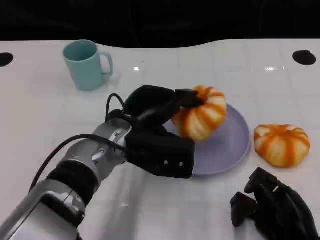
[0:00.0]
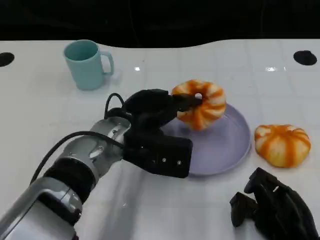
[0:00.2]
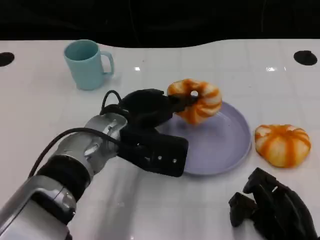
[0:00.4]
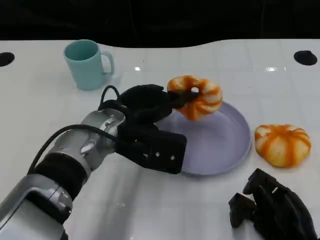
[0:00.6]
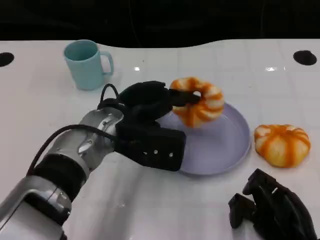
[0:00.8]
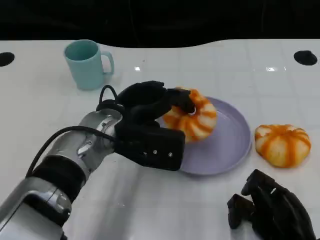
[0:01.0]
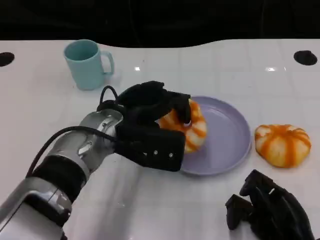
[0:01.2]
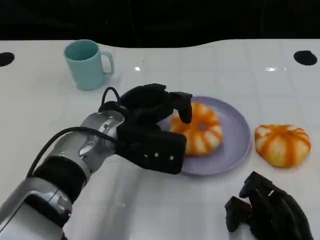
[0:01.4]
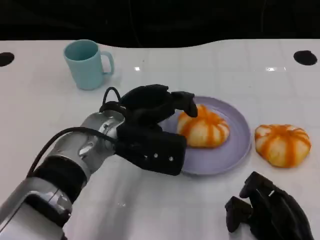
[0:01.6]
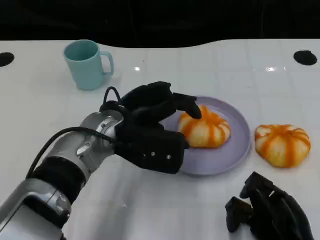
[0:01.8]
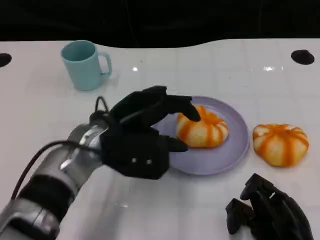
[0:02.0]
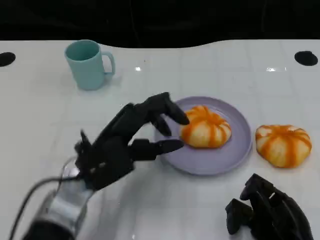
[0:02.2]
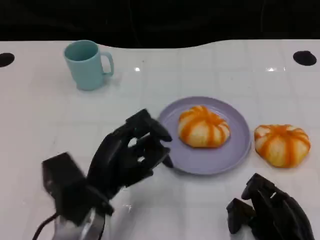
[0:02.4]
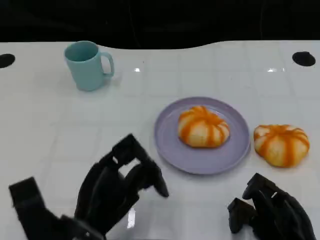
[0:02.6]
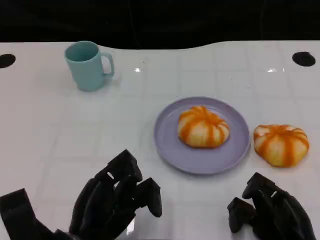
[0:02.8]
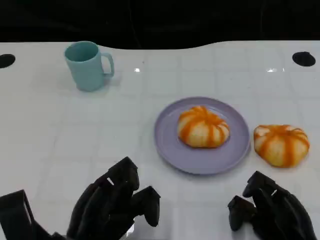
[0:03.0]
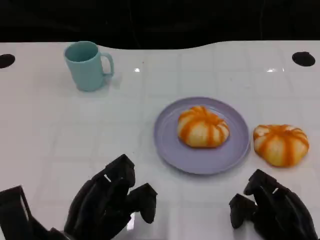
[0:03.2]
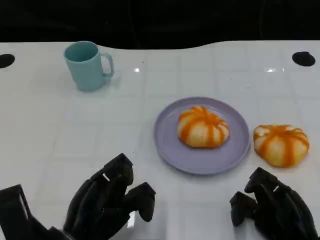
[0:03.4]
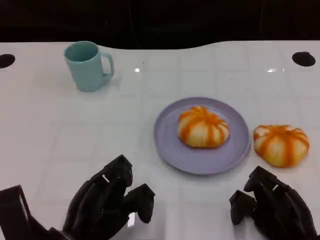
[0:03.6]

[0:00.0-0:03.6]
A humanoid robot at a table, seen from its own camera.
Task of the whole recording: Grasp the bread from the table and place it into the plate.
0:00.0 to 0:01.8: The hands move only a little.
0:01.8 to 0:03.6: The left hand shifts roughly 20 cm backward, downward and to the left.

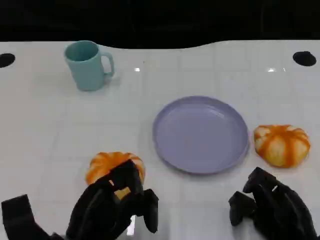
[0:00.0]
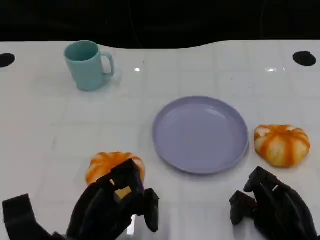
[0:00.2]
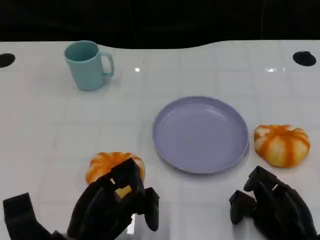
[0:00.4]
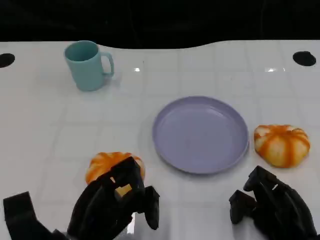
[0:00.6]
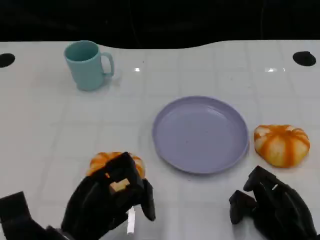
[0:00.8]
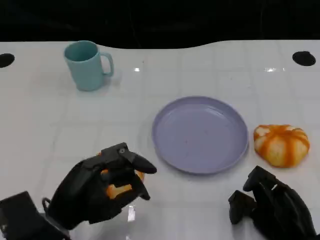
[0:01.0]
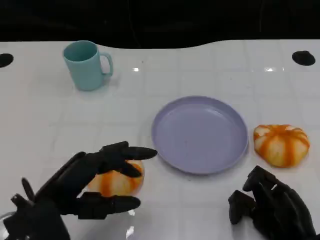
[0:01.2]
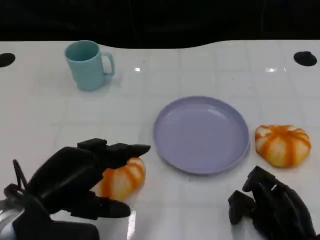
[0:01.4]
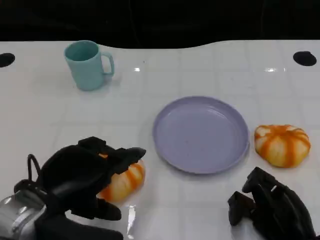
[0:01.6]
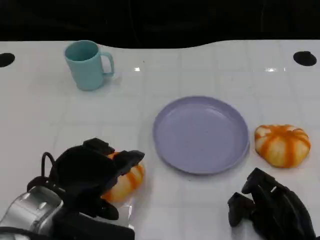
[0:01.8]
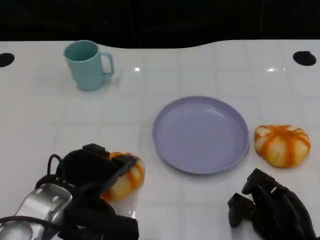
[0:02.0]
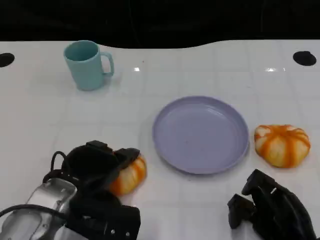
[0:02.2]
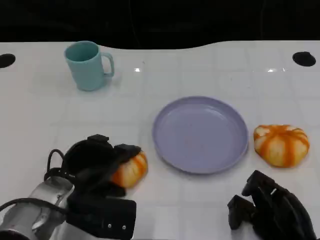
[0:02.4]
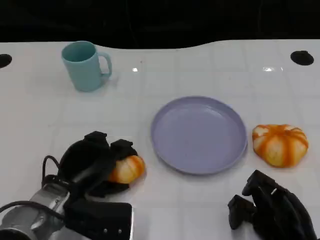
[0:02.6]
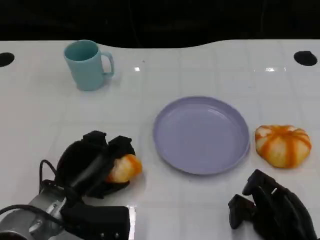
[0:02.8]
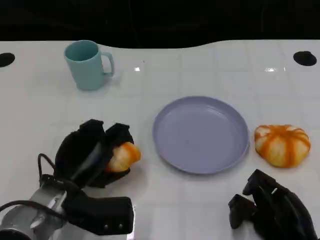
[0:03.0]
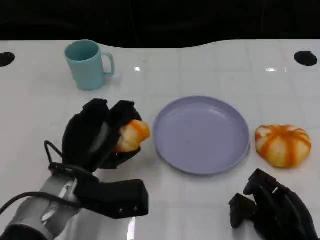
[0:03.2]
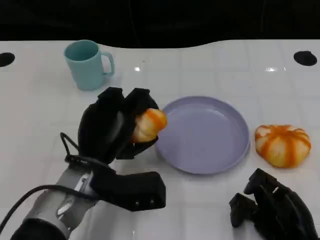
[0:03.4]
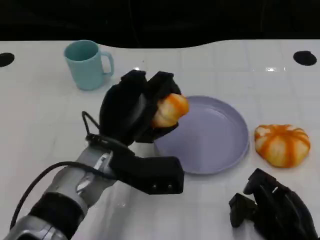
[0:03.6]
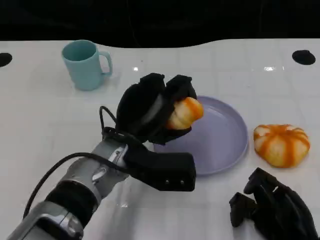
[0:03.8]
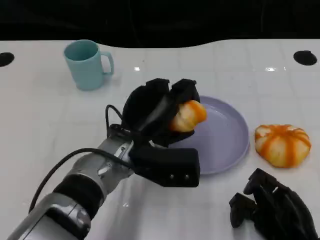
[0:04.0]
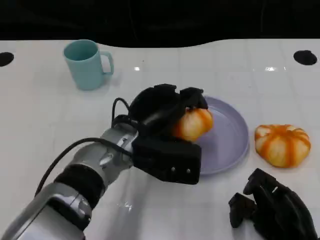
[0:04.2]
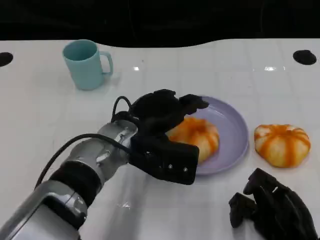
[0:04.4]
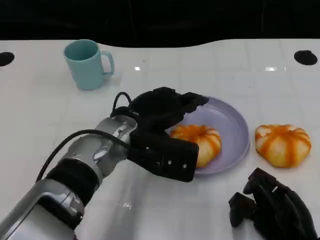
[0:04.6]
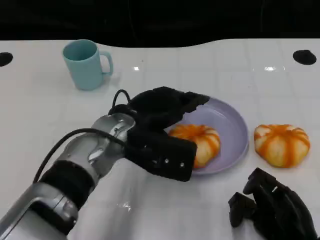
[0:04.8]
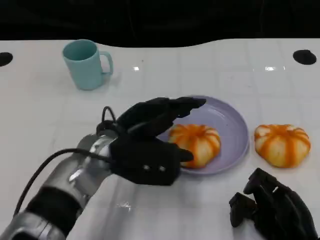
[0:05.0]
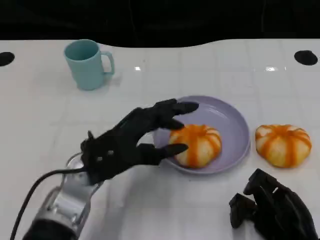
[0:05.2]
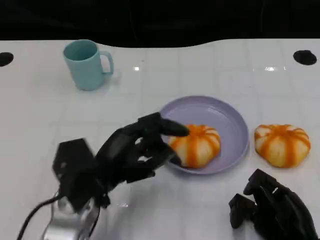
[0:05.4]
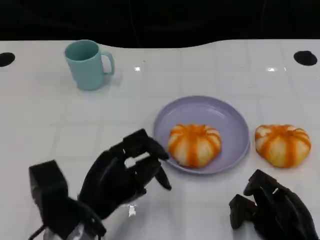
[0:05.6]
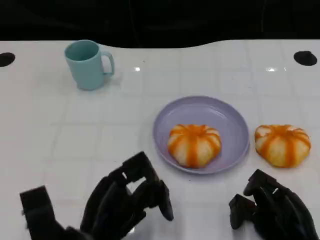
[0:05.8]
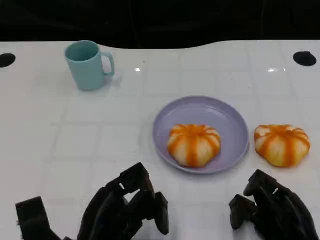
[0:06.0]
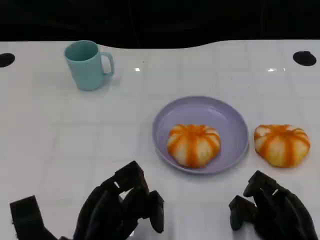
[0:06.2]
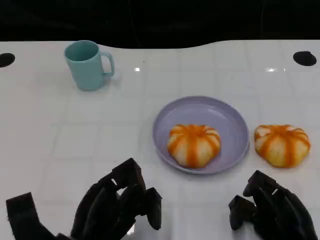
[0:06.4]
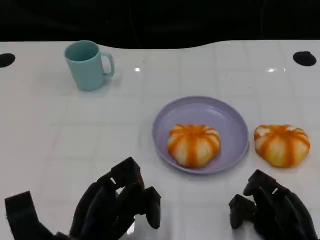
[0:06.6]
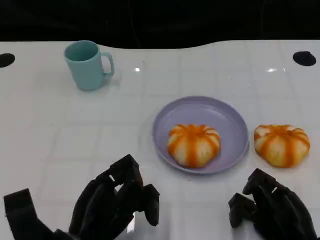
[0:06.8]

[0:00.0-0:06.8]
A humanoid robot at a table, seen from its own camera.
Task of the whole recording: Grasp the bread from the table and place it into the plate.
0:00.0 to 0:01.4: The left hand travels upward by approximately 10 cm.
0:01.4 to 0:02.8: The left hand goes some 10 cm downward and forward.
0:02.8 to 0:04.0: The left hand travels to the right and upward by about 10 cm.
0:04.0 to 0:05.4: The left hand travels to the left and backward by some 10 cm.
0:05.4 to 0:06.8: The left hand is displaced backward by roughly 5 cm.

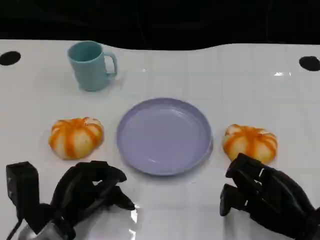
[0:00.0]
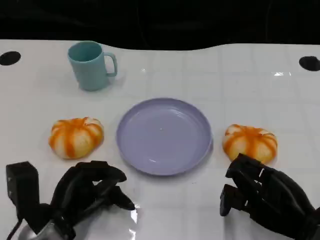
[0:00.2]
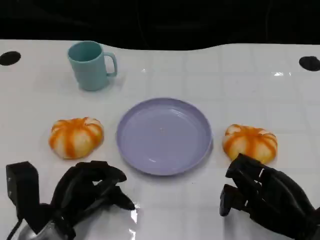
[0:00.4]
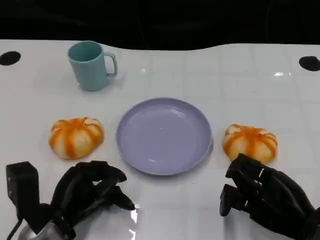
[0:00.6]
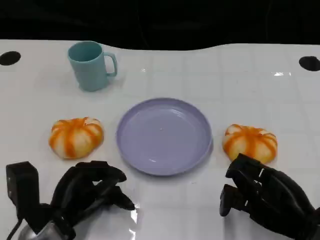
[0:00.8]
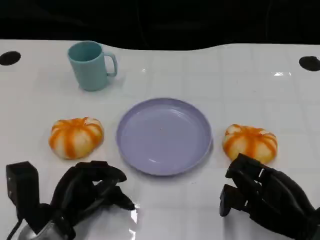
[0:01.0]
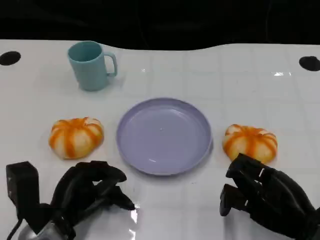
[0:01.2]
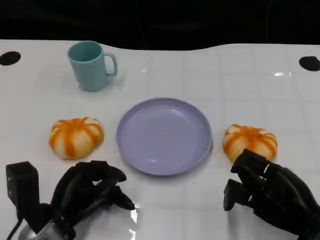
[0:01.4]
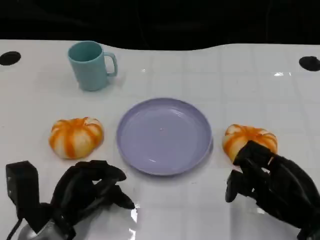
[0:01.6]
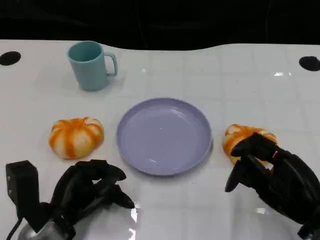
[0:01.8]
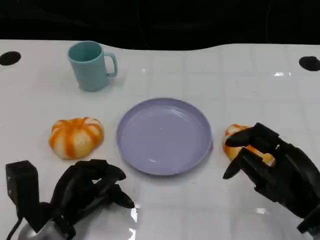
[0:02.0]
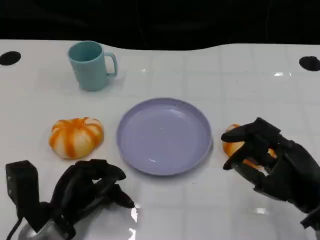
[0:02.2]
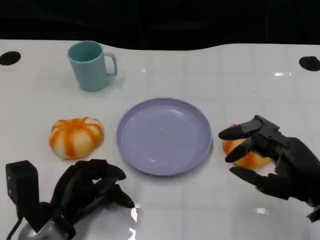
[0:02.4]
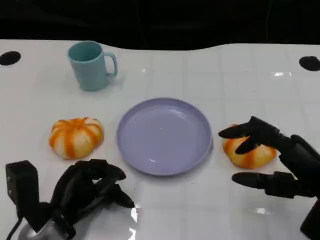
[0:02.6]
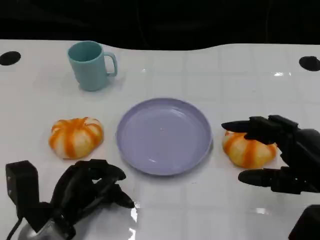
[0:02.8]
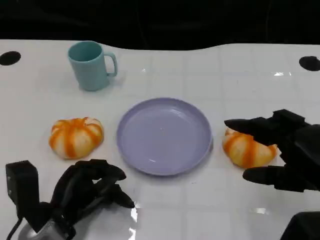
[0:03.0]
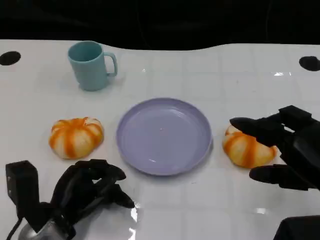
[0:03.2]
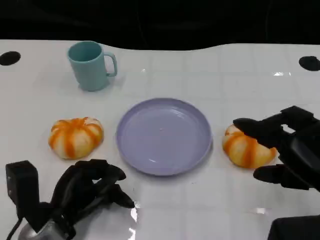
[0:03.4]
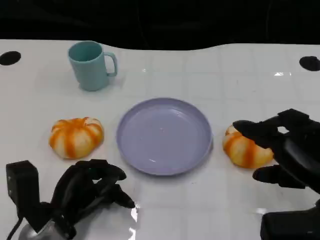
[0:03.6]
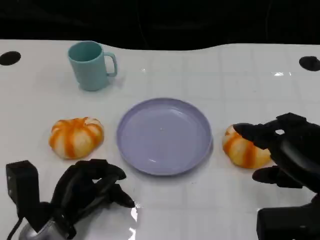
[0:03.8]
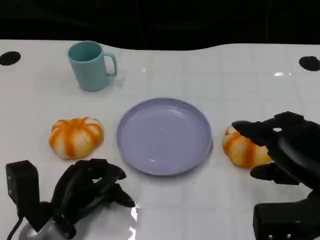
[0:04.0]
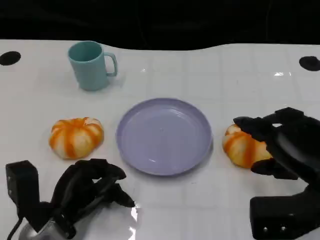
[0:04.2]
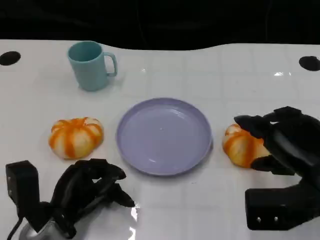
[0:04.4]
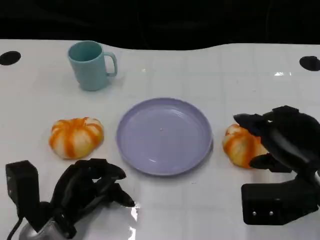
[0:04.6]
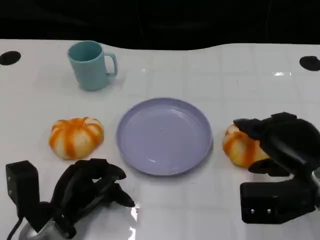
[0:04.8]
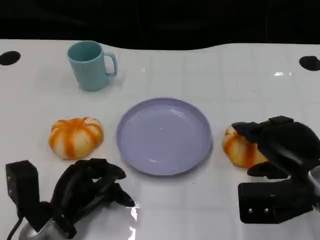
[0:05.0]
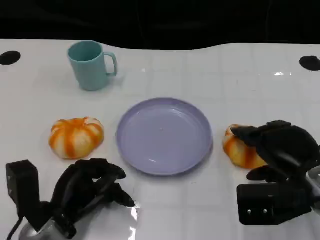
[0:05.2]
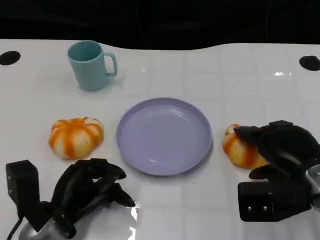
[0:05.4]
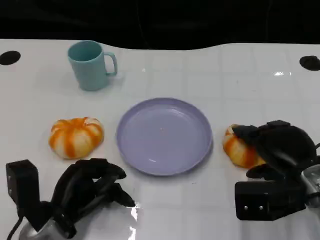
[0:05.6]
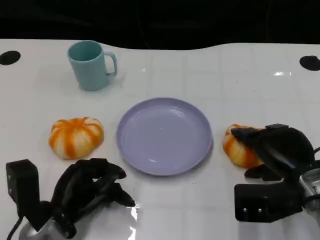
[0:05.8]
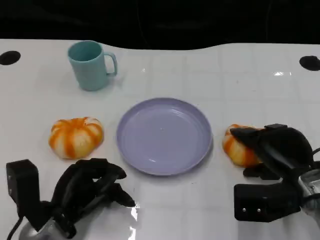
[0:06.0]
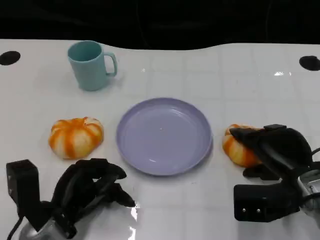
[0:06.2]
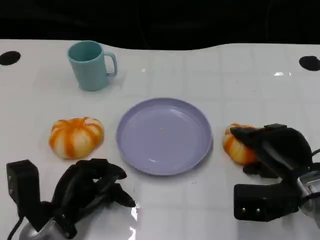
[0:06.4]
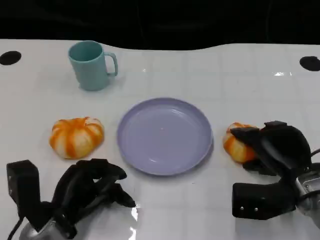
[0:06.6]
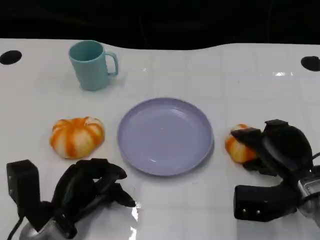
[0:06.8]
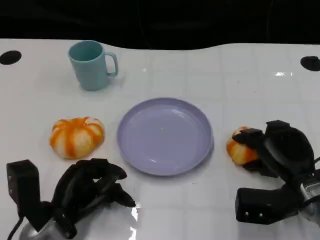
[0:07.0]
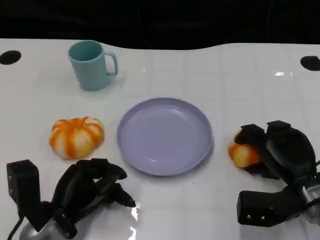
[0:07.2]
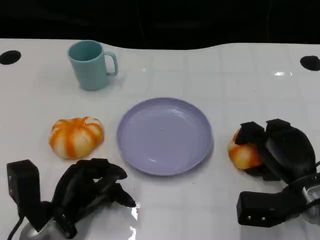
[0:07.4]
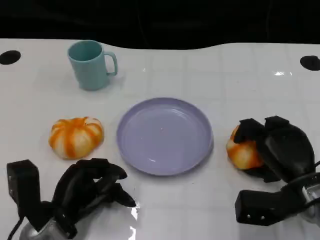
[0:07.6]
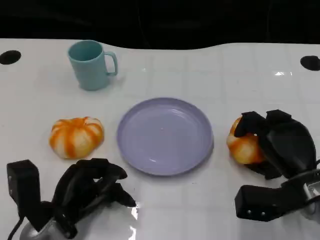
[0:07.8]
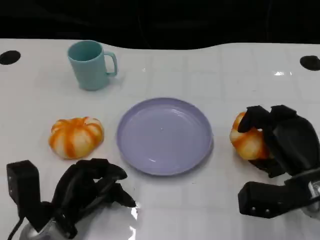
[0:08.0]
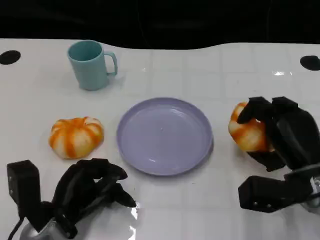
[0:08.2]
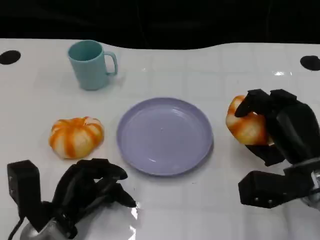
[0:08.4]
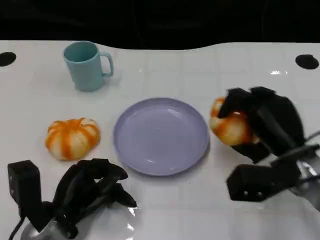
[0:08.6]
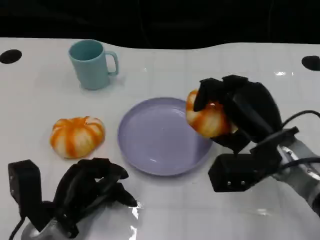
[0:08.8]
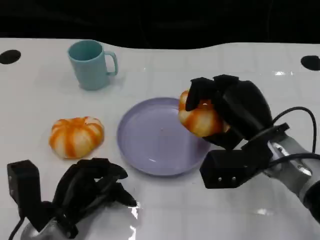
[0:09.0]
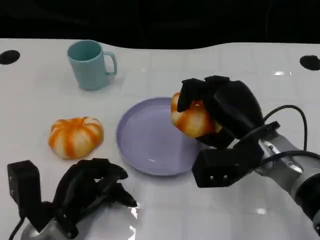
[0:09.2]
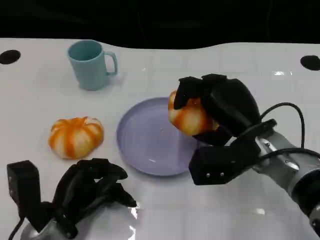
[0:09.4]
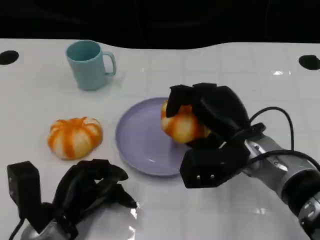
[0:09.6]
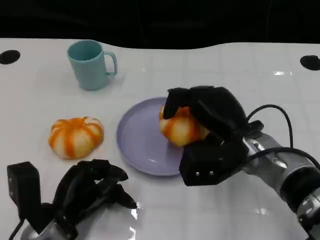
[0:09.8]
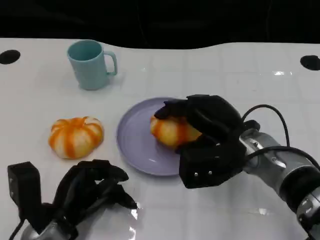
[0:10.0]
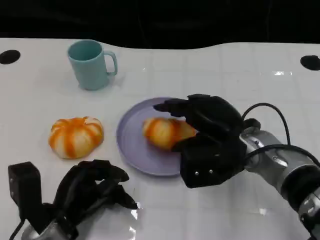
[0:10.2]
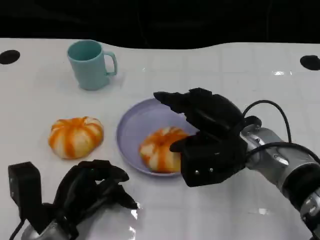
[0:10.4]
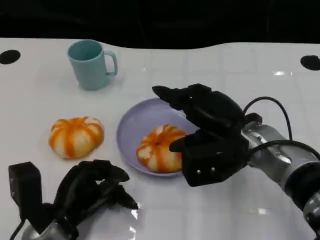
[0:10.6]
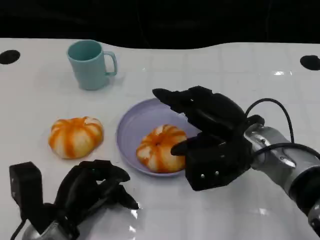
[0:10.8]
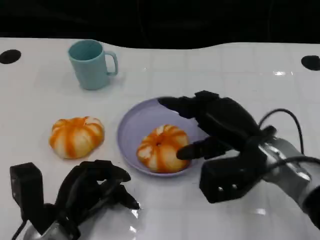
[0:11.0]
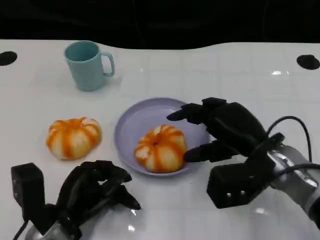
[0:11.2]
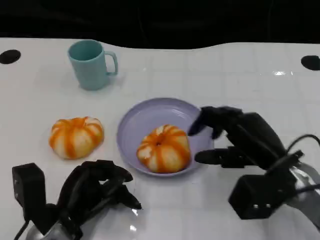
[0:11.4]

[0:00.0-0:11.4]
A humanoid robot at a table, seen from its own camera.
Task of the whole recording: Grasp the bread from the table and place it into the plate.
0:00.0 to 0:01.4: Neither hand changes place.
0:01.4 to 0:02.8: The right hand moves upward, roughly 5 cm.
0:04.2 to 0:05.6: The right hand is displaced downward by approximately 5 cm.
0:05.6 to 0:07.2: The hands stay close to where they were, moving slightly.
0:07.2 to 0:08.6: The right hand heads upward, covering about 5 cm.
0:08.6 to 0:10.0: The right hand moves to the left, some 5 cm.
0:10.0 to 0:11.4: The right hand shifts roughly 5 cm to the right.
